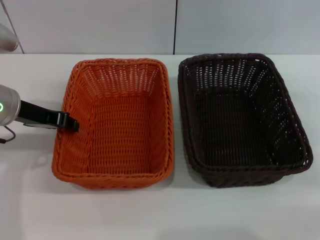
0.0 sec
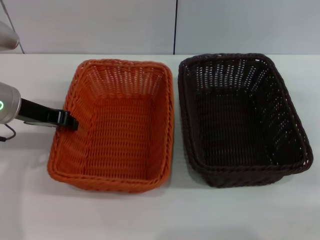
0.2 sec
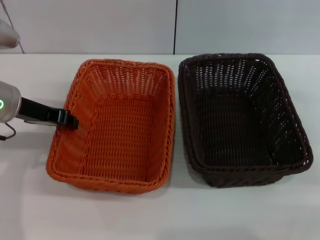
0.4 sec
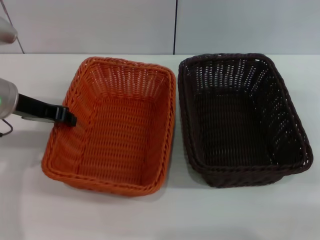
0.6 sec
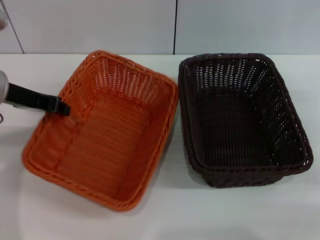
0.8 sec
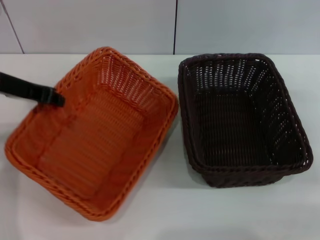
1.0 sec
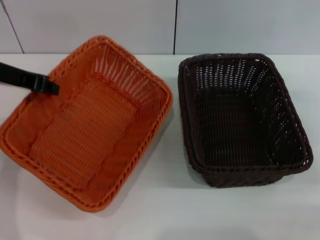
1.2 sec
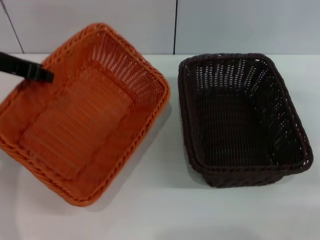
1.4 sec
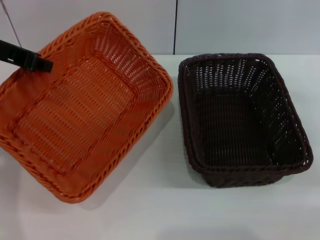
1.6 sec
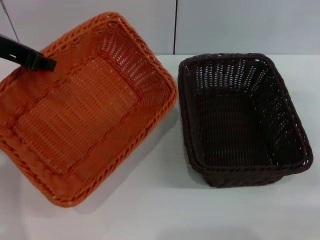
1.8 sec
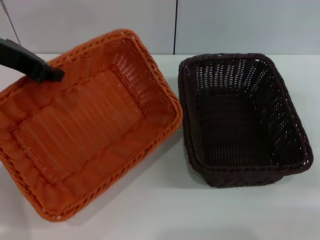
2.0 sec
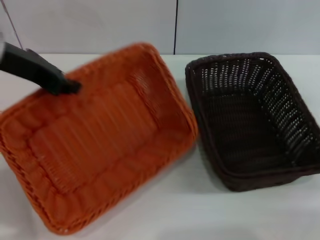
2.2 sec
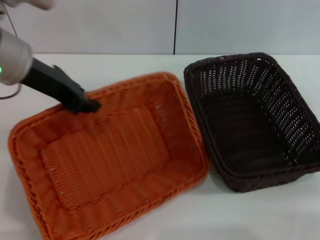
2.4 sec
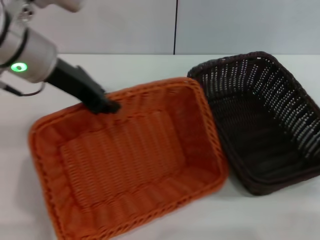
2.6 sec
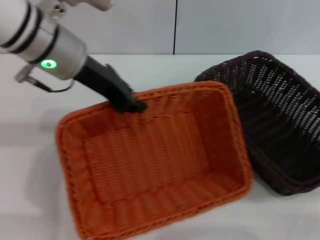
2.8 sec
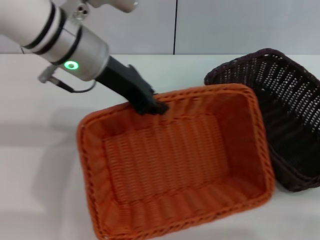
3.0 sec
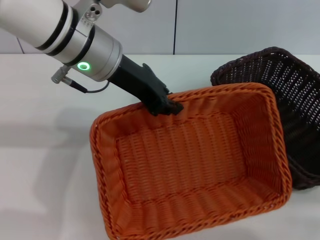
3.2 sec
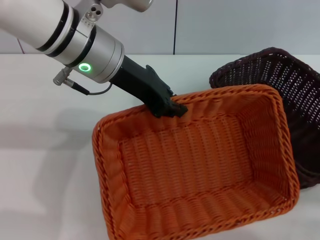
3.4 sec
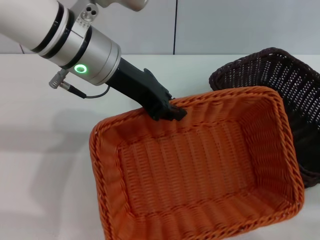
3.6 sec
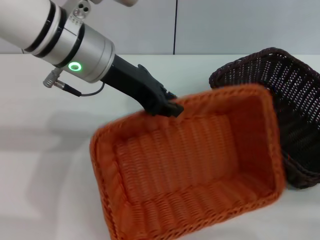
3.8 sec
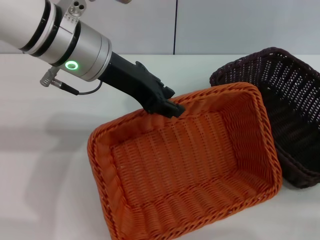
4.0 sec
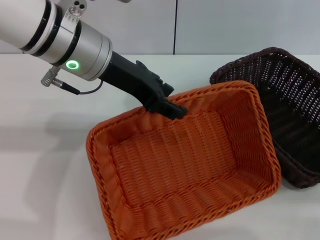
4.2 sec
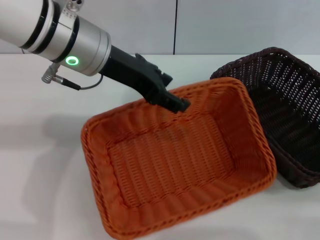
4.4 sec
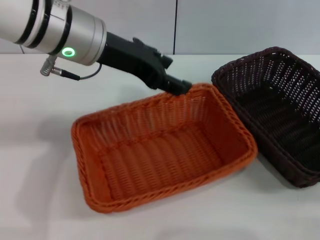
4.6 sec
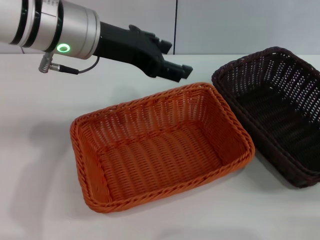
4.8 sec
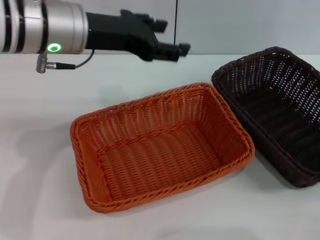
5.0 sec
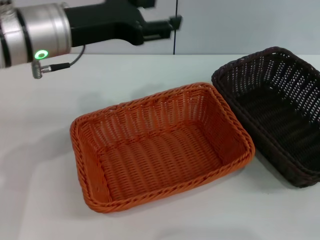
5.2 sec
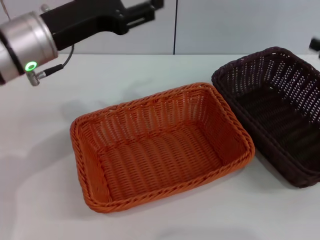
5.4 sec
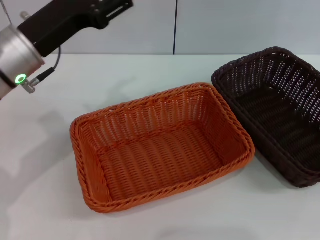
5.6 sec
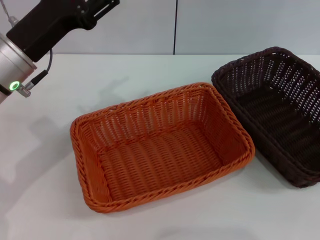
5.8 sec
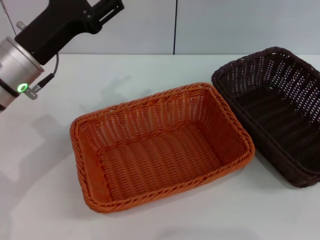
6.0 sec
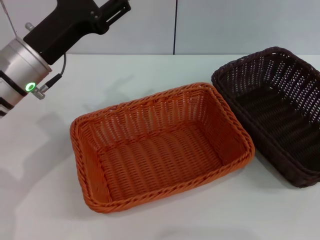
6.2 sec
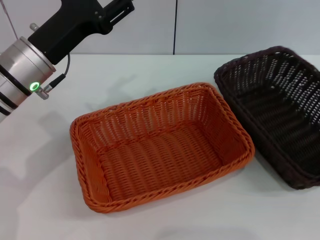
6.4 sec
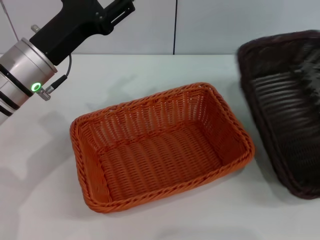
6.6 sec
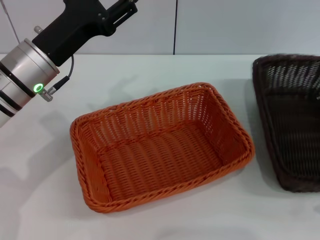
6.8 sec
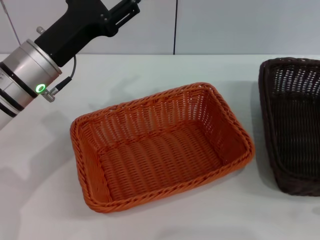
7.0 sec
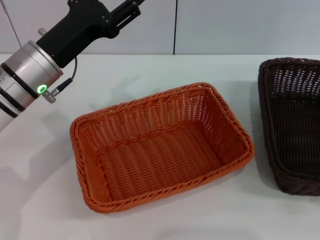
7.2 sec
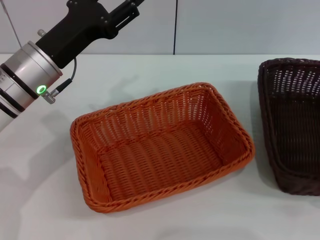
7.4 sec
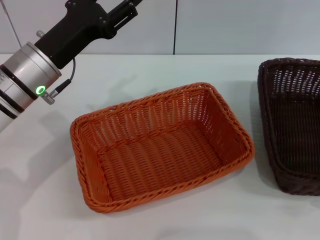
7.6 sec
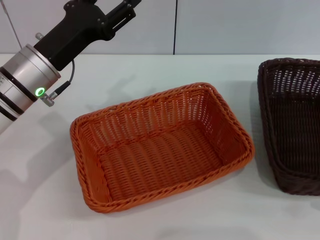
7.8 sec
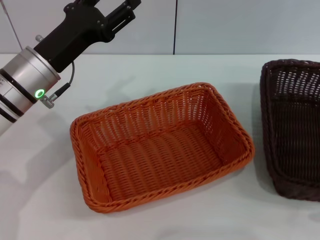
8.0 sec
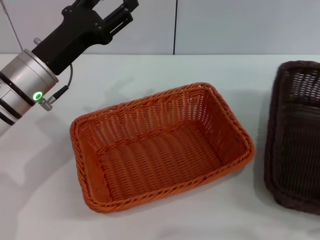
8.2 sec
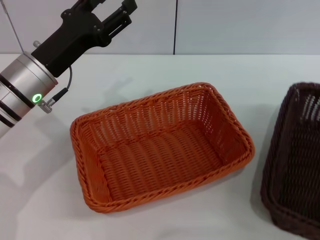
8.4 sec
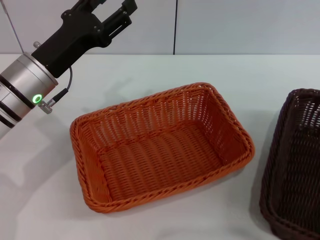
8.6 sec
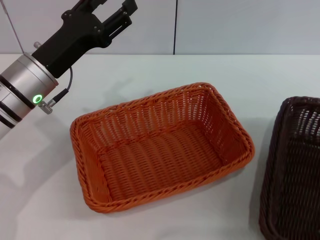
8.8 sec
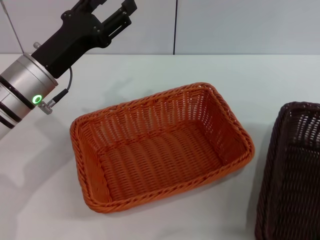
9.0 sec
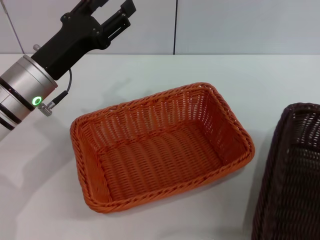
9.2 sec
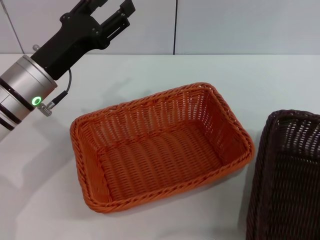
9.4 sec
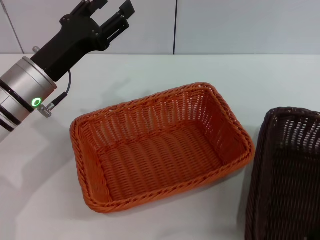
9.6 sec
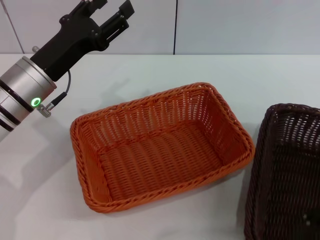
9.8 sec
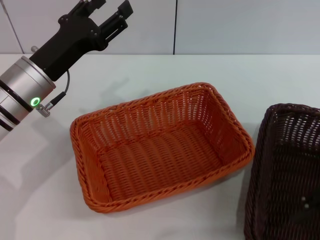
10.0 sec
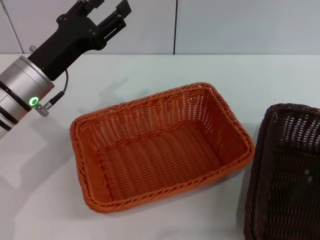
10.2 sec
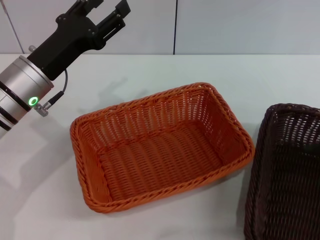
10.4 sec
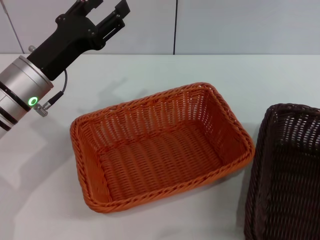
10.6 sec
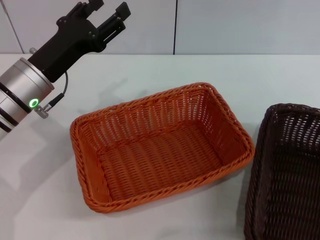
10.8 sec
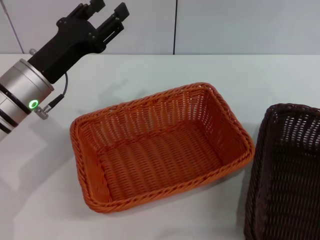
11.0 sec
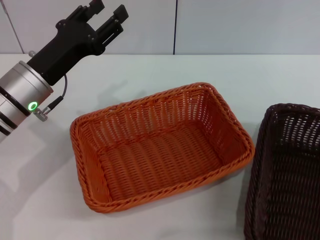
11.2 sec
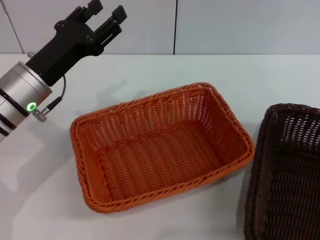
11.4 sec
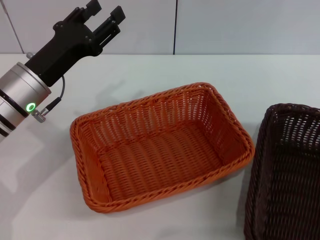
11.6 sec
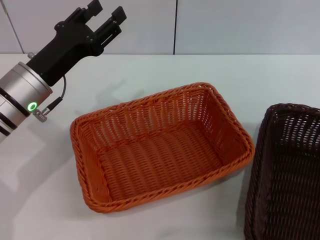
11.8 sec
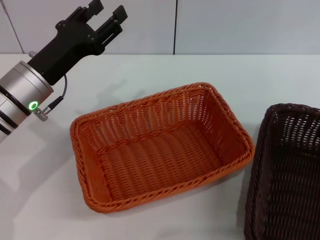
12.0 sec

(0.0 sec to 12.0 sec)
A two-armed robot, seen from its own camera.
Step, 1.2 sec - 4.6 sec: Place the light basket in the center of view with the left gripper.
0.0 sec - 1.6 sec: The left gripper moves upward, some 10 cm, and closes its fingers.
1.6 sec - 3.0 sec: The left gripper shifts approximately 10 cm to the right.
3.0 sec - 4.4 sec: The left gripper opens its fingers.
4.4 sec - 6.0 sec: The right gripper heads upward and to the right, covering approximately 15 cm. Meanwhile the left gripper shifts roughly 10 cm to the left and downward.
6.0 sec - 7.6 sec: The right gripper moves approximately 5 cm.
7.6 sec - 9.0 sec: The right gripper shifts about 5 cm to the left.
9.0 sec - 10.4 sec: The right gripper goes some 5 cm upward.

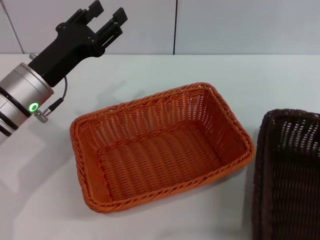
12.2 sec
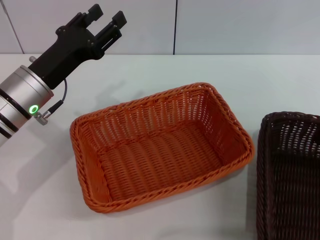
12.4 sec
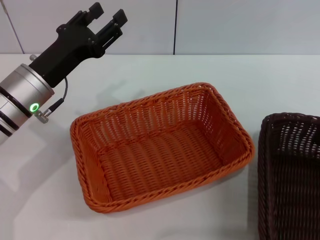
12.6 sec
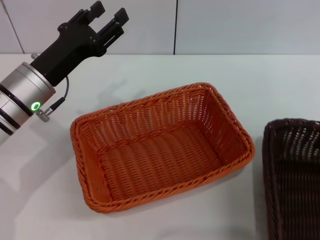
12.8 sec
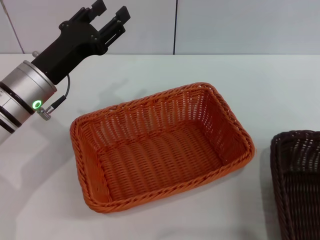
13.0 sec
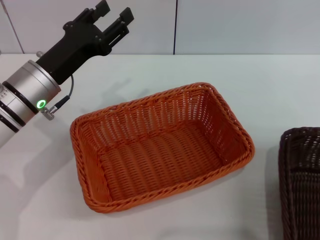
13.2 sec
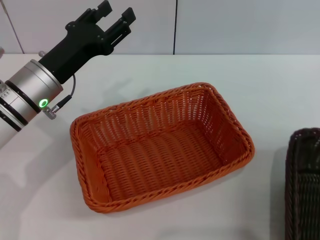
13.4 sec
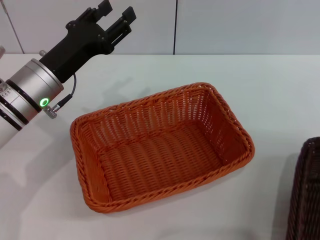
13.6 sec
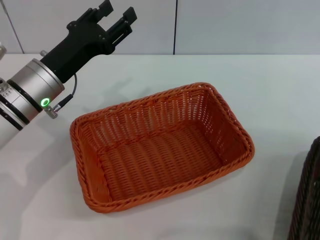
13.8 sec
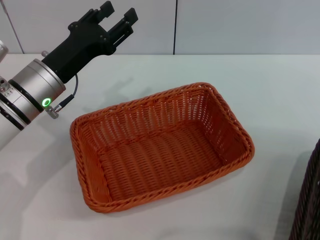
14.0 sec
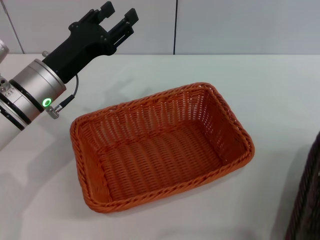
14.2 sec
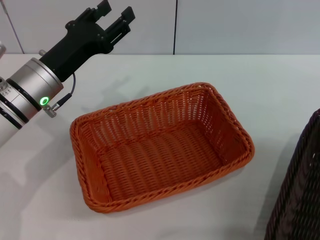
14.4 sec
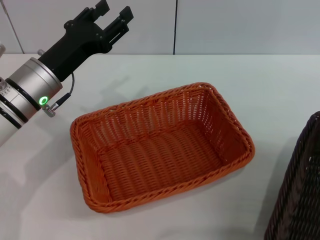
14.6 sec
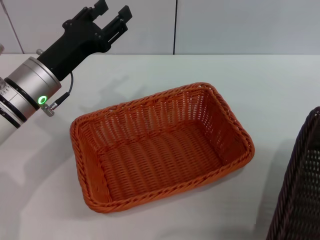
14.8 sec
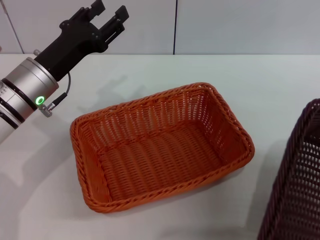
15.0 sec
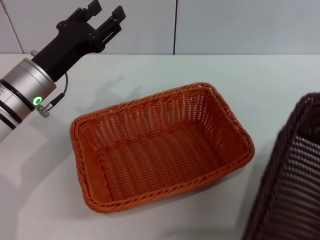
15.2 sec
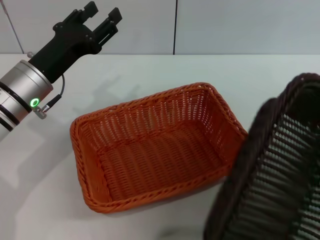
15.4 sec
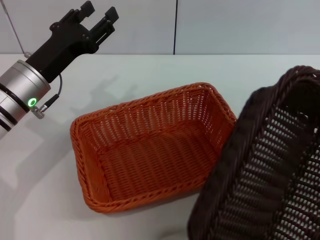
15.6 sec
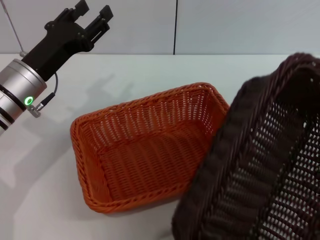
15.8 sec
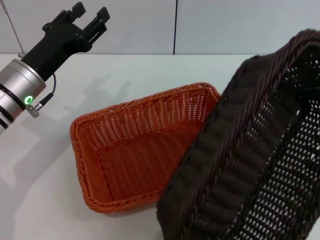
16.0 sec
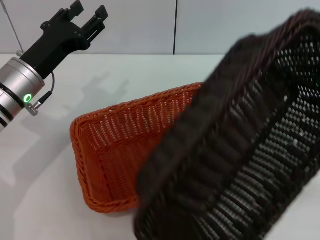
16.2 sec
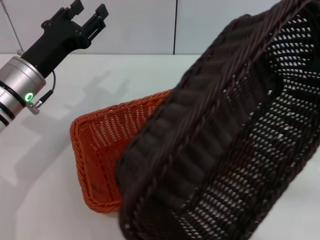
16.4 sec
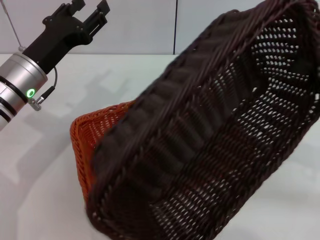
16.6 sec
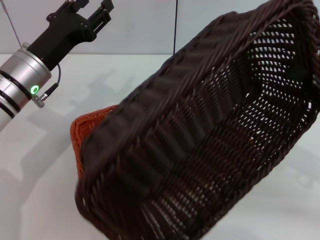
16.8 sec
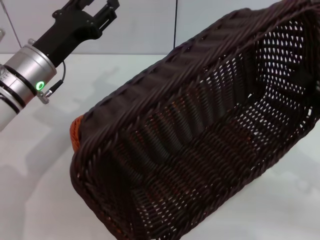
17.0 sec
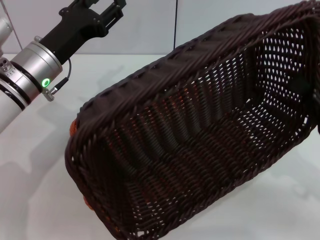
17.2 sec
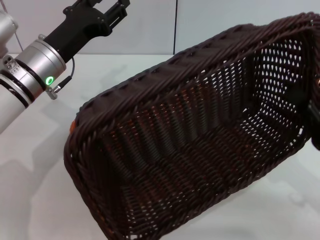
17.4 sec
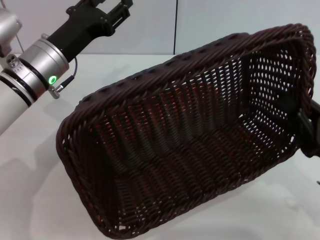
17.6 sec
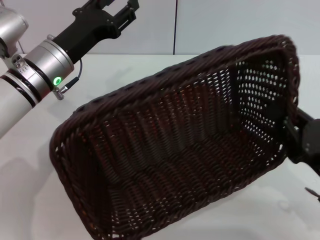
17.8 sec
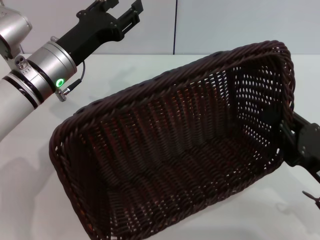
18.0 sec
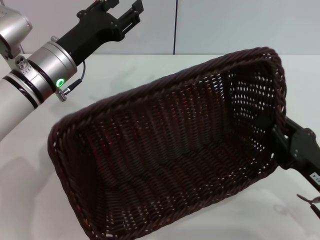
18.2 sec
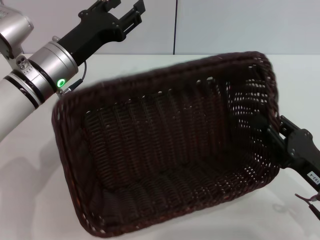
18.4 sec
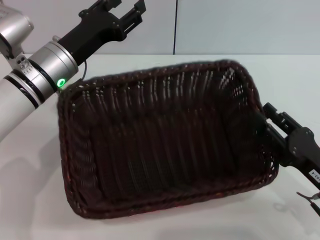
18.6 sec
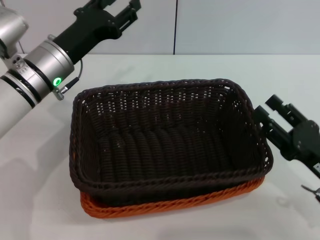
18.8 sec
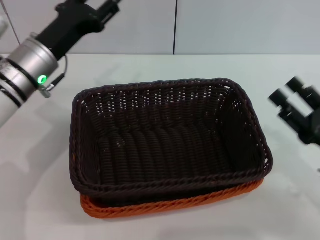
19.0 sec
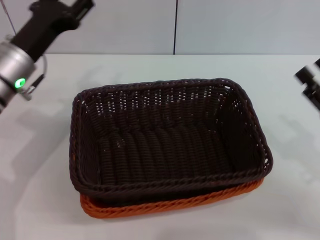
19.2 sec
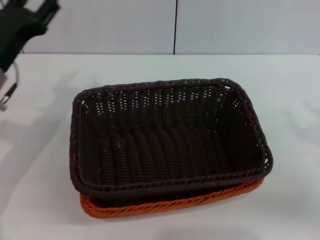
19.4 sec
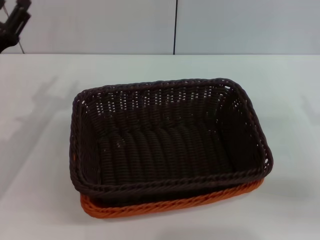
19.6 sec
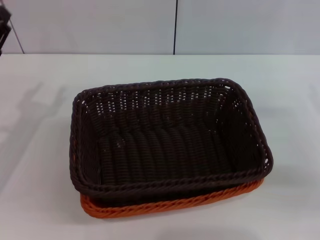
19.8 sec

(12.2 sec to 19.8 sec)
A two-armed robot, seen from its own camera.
Step, 12.2 sec - 14.8 sec: Pick up the dark basket with the right gripper.
Step, 15.2 sec - 18.6 sec: Place the dark basket on the light basket with the right gripper.
12.2 sec - 13.8 sec: The right gripper moves to the right, approximately 5 cm, and closes.
15.2 sec - 16.8 sec: The right gripper shifts roughly 15 cm to the left and downward.
16.8 sec - 18.2 sec: The right gripper heads downward, backward and to the left, covering about 10 cm.
18.2 sec - 19.8 sec: The right gripper is displaced forward, to the right and upward by approximately 15 cm, and opens up. Meanwhile the left gripper travels to the left and backward by about 15 cm.
